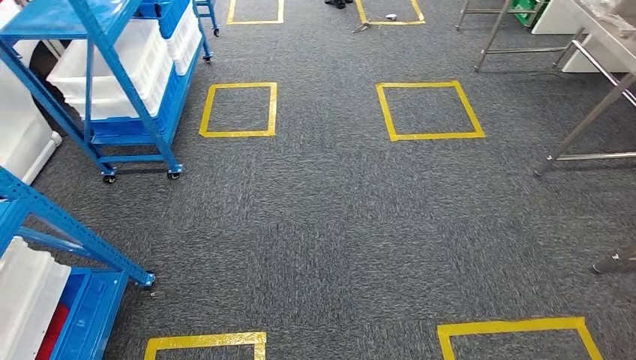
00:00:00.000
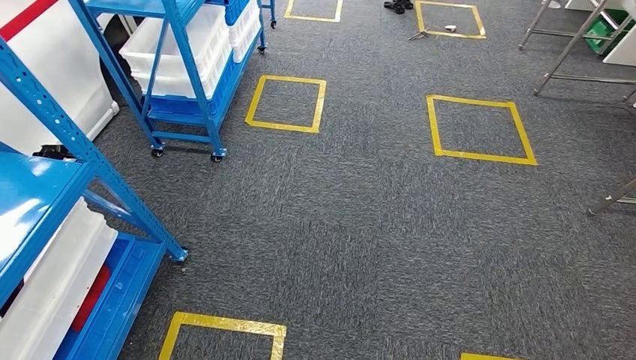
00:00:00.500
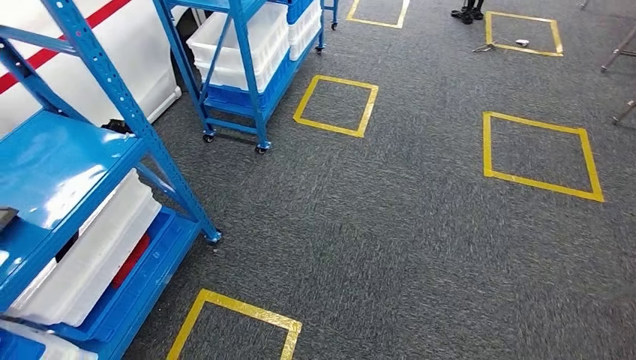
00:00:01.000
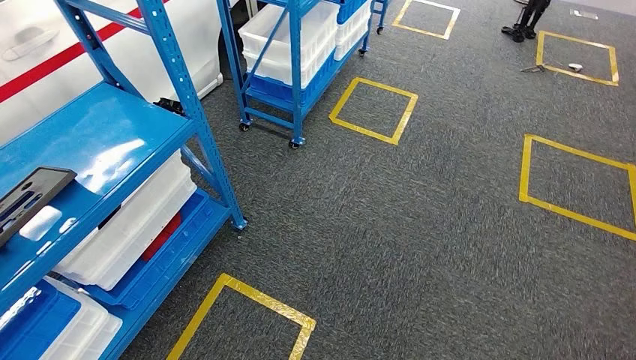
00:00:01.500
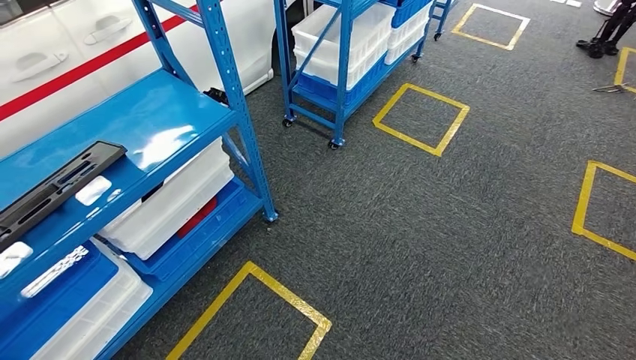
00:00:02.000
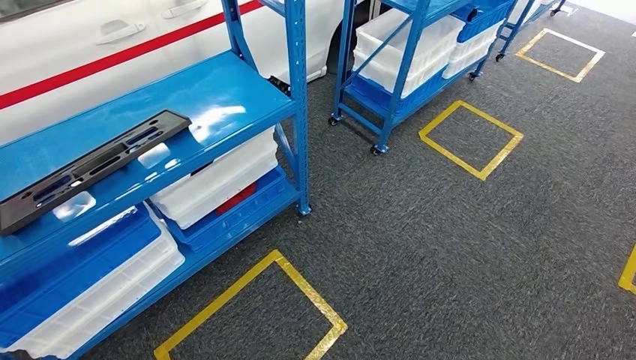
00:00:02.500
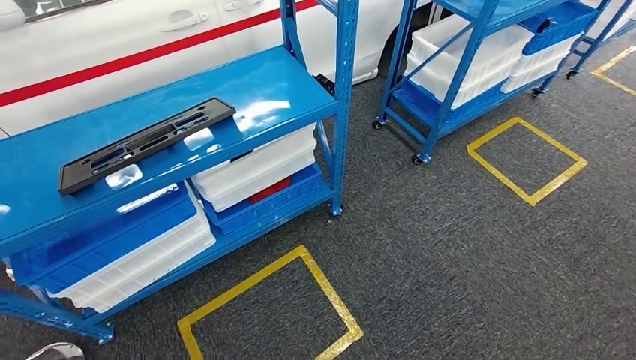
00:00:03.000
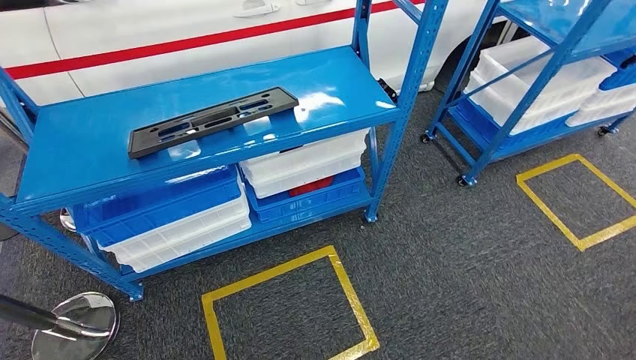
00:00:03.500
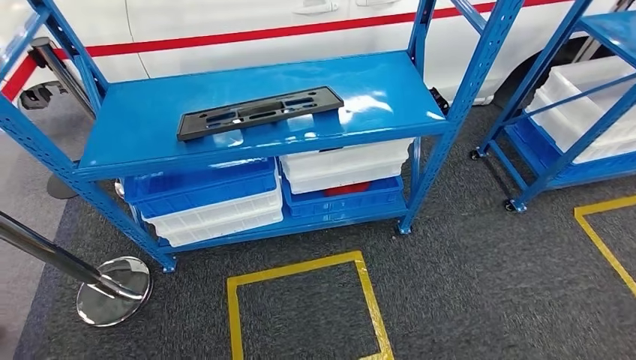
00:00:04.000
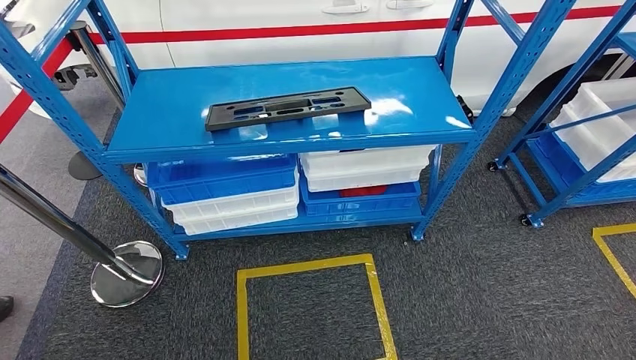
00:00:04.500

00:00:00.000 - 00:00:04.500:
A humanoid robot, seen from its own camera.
Step, 00:00:00.000 - 00:00:04.500: Move to the initial position of the shelf.
